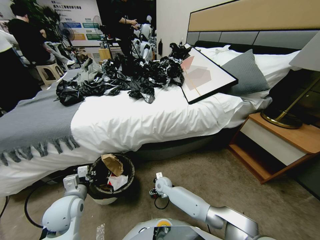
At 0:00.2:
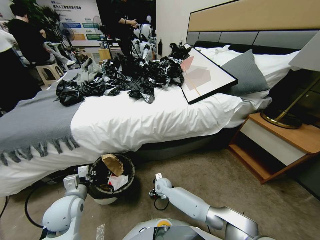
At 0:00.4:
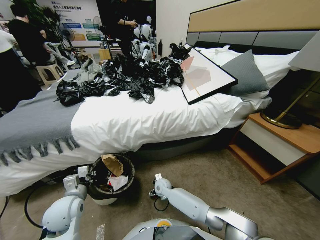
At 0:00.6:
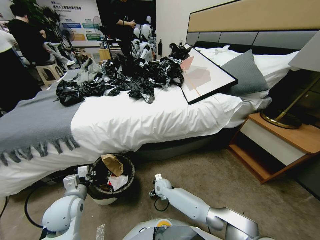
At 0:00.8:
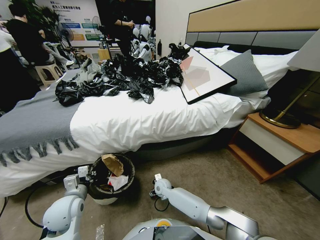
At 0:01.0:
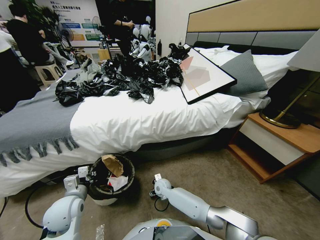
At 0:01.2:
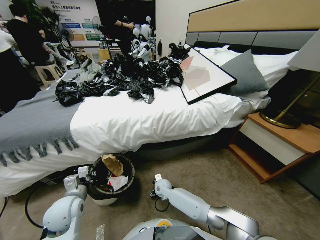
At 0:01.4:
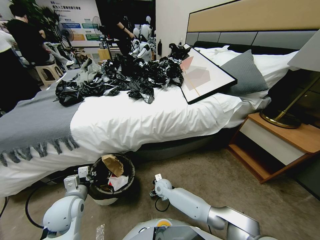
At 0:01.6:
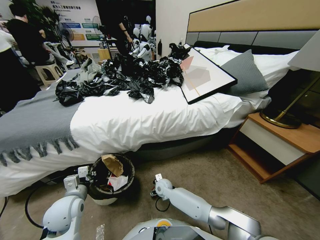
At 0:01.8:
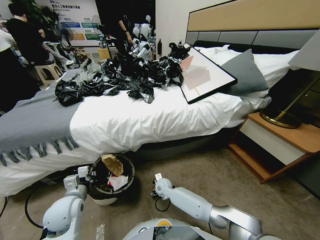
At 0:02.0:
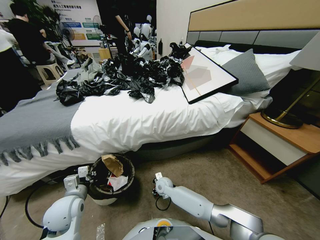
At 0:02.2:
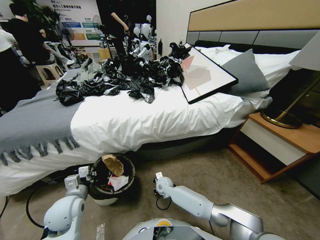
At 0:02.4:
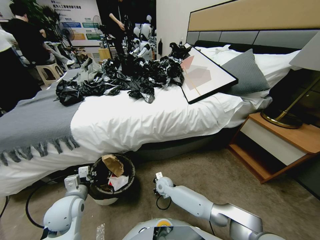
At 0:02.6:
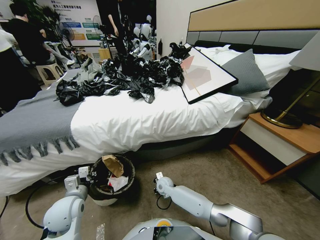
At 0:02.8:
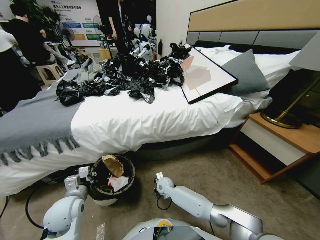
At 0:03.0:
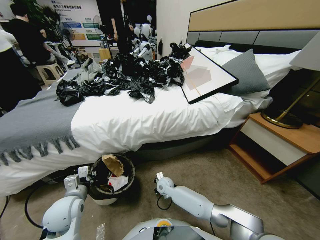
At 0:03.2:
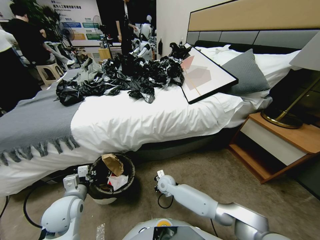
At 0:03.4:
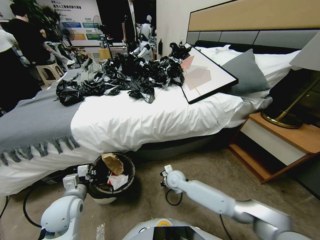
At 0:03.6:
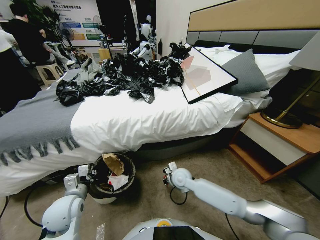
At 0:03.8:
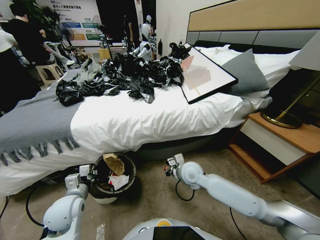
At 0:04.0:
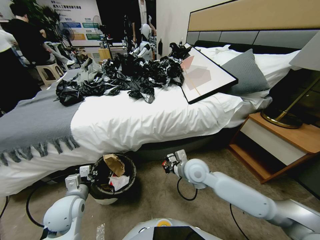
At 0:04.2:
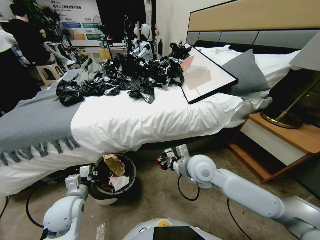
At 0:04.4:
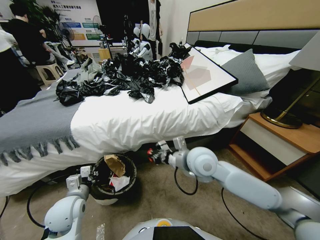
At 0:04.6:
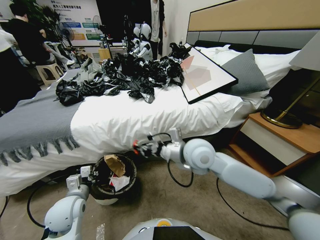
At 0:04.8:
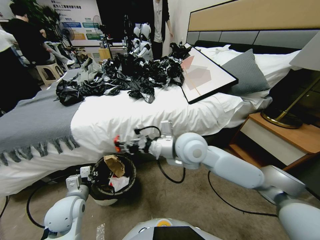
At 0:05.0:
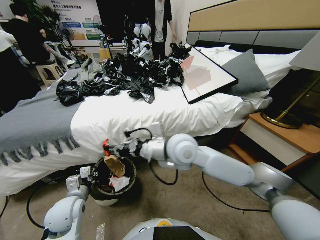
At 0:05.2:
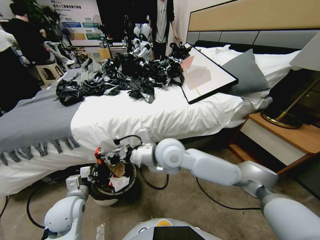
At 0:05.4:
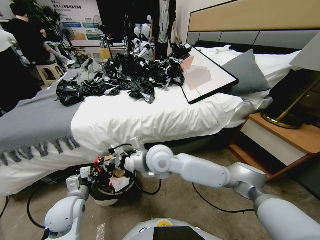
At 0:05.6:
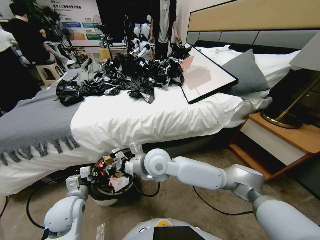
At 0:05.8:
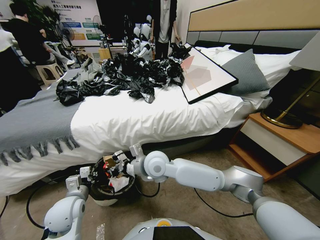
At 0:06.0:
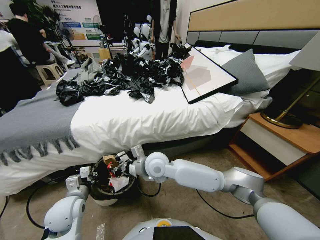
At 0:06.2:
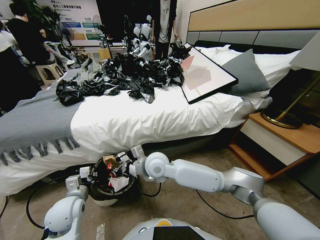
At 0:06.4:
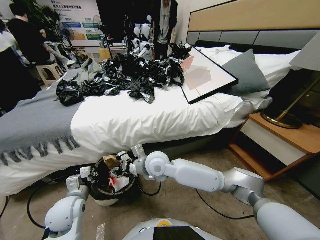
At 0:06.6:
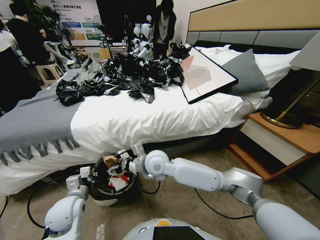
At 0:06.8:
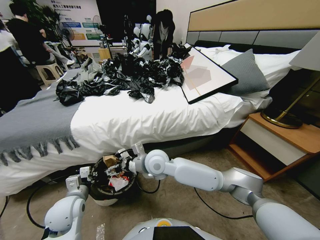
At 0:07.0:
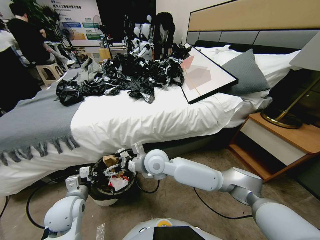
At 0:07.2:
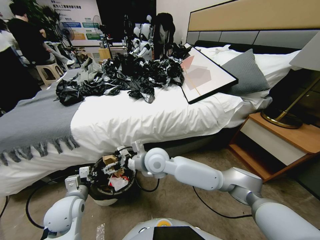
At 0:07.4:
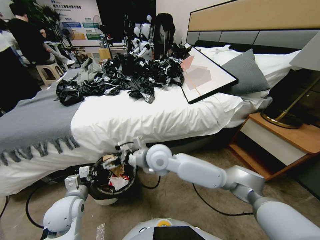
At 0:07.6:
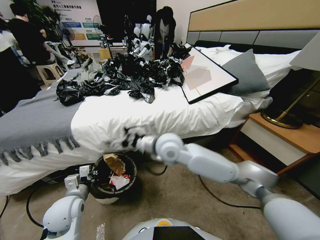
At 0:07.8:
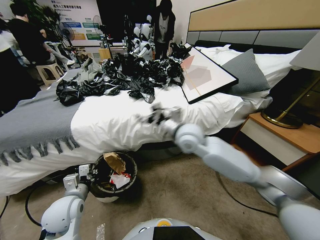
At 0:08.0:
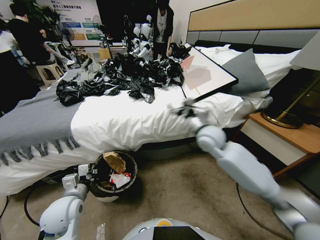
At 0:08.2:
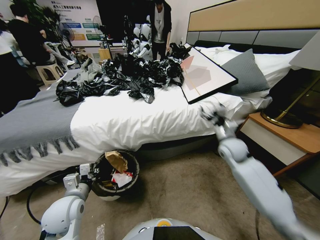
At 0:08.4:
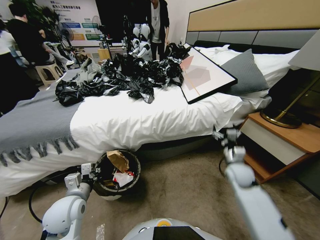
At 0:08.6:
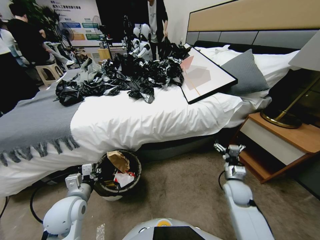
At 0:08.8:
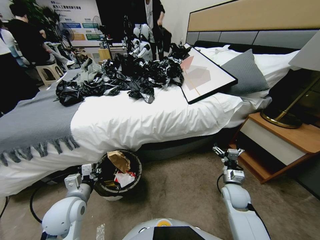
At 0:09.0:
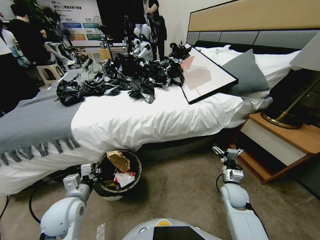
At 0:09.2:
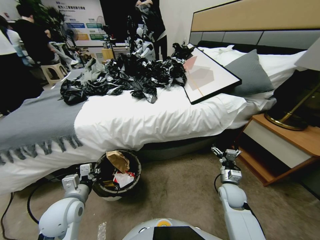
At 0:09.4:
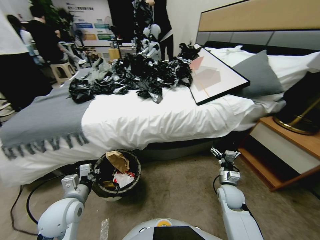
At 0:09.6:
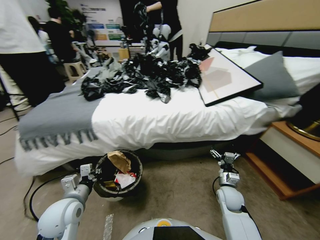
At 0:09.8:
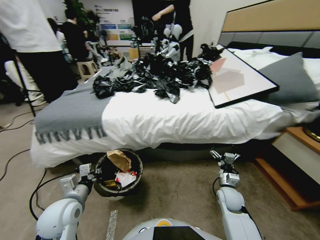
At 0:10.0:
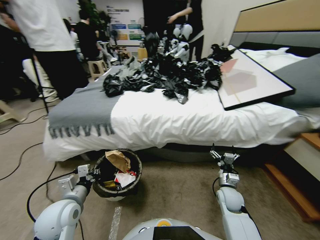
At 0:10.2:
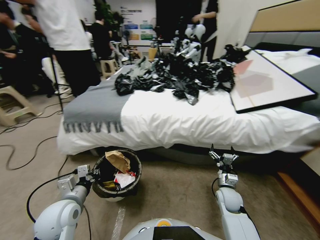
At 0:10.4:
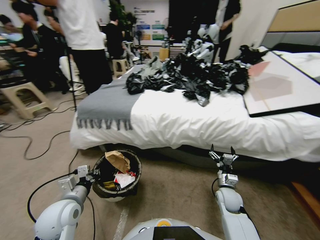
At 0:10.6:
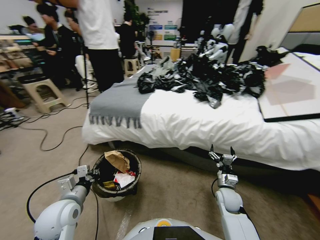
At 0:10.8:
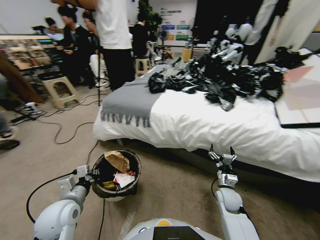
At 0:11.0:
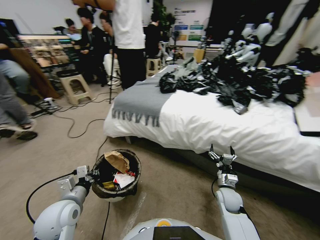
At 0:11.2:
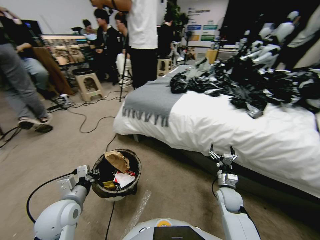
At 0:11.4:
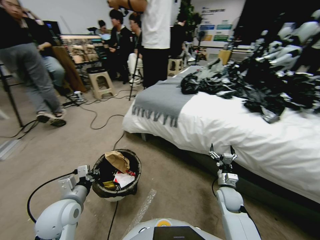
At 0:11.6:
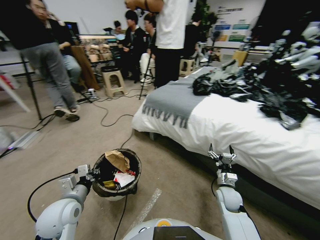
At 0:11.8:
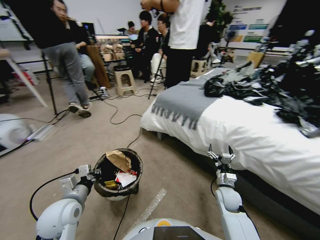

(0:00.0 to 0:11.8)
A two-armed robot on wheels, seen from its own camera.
Task of the whole recording: Pick up the trash bin, then pick up the garbage from the floor and place it into the trash bin.
0:00.0 - 0:01.4: Both grippers stay put.
0:01.4 - 0:03.0: The right gripper closes up.
0:03.0 - 0:04.4: The right gripper moves upward, about 35 cm.
0:04.4 - 0:06.0: The right gripper goes about 15 cm to the left and downward.
0:06.0 - 0:07.4: The right gripper goes about 5 cm upward, and opens.
0:07.4 - 0:08.8: The right gripper travels to the right and downward by roughly 40 cm.

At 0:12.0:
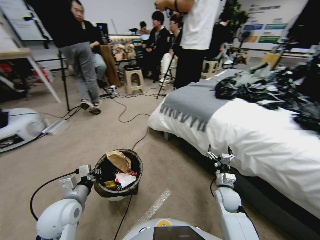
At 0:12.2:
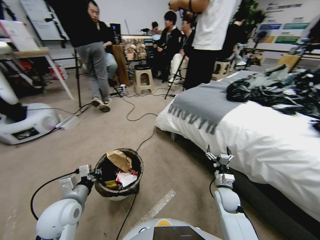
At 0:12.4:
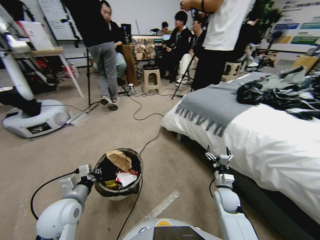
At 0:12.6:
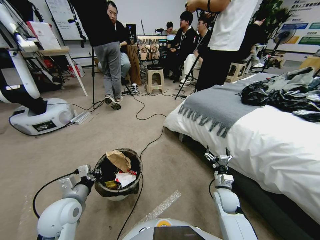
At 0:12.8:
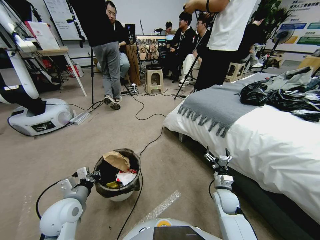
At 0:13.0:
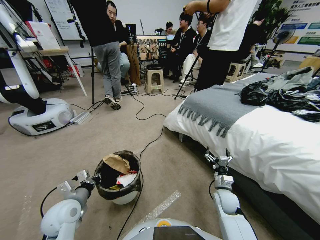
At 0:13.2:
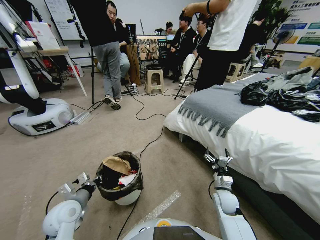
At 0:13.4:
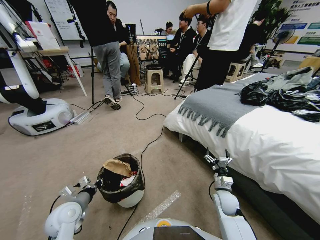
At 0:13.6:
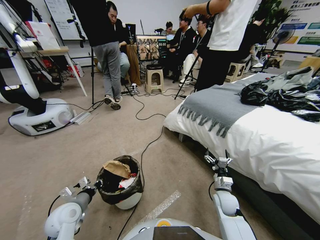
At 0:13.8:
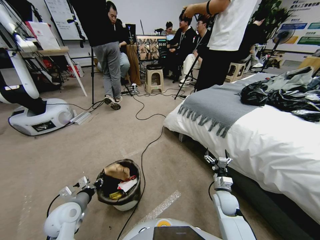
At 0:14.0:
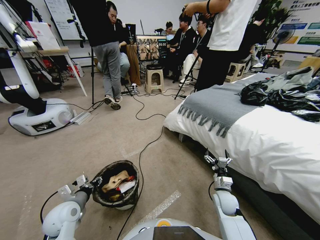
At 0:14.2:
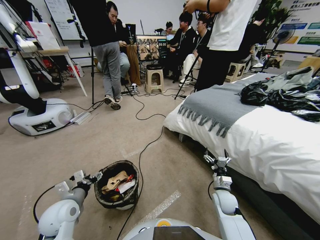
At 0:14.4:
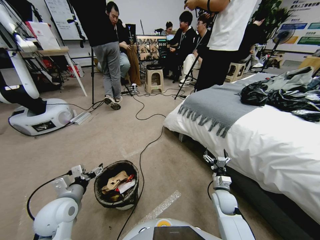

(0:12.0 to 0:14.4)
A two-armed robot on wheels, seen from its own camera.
Task of the whole recording: Pick up the trash bin, then pick up the garbage from the floor and place it into the trash bin.
0:12.0 - 0:13.2: The left gripper goes roughly 5 cm downward.
0:13.2 - 0:14.4: The left gripper travels upward by some 5 cm, and opens.

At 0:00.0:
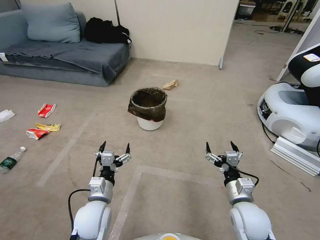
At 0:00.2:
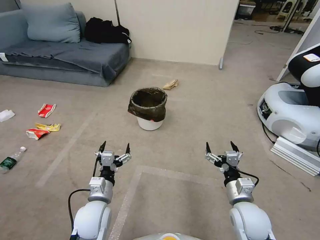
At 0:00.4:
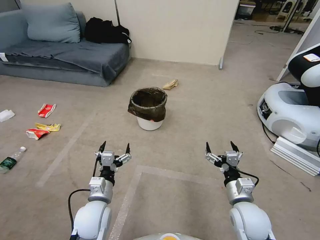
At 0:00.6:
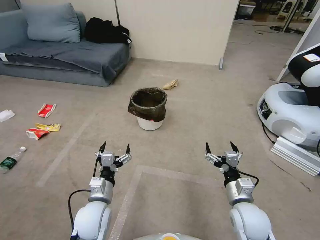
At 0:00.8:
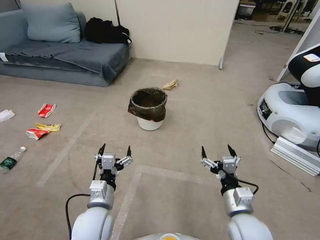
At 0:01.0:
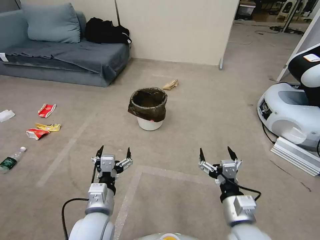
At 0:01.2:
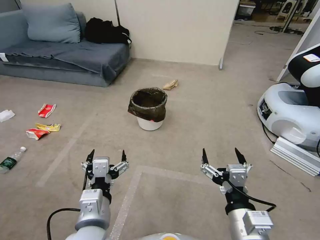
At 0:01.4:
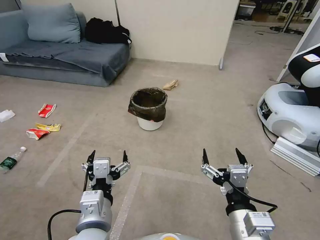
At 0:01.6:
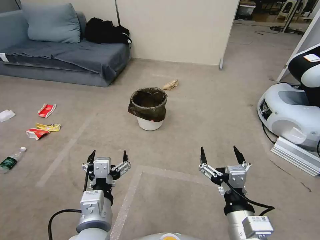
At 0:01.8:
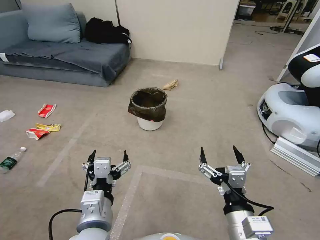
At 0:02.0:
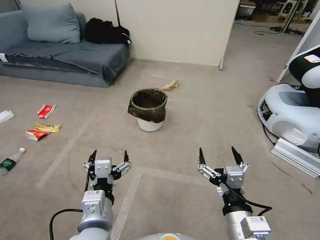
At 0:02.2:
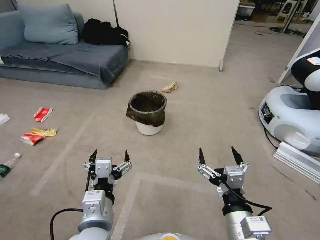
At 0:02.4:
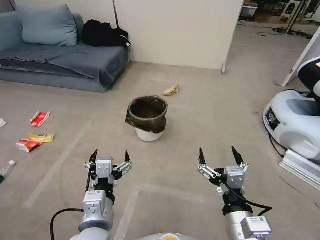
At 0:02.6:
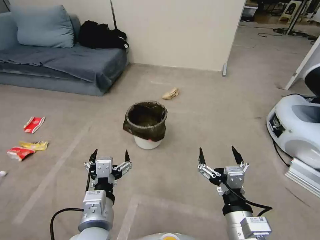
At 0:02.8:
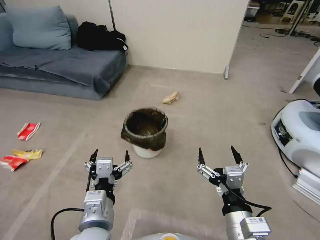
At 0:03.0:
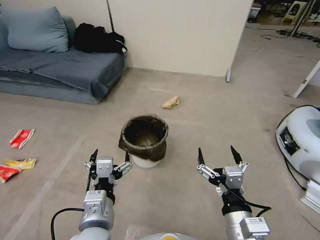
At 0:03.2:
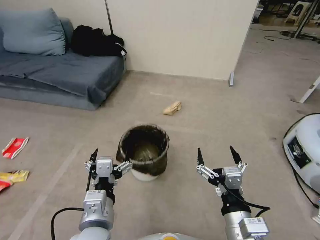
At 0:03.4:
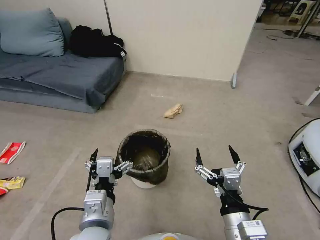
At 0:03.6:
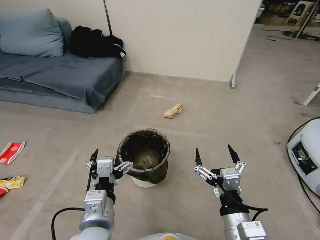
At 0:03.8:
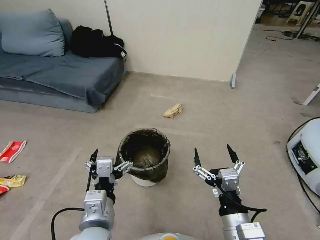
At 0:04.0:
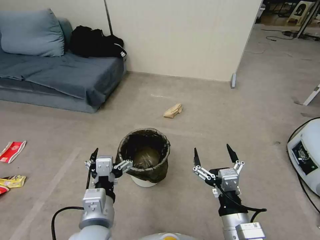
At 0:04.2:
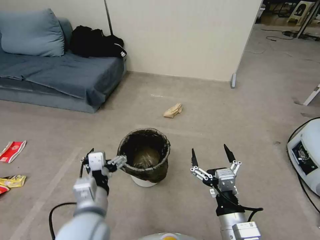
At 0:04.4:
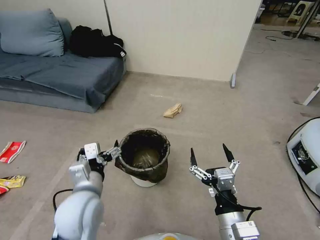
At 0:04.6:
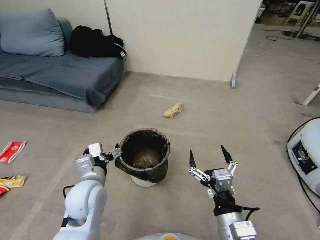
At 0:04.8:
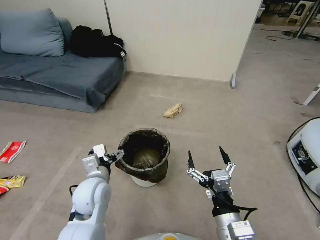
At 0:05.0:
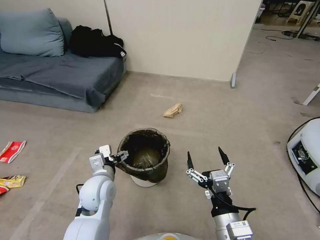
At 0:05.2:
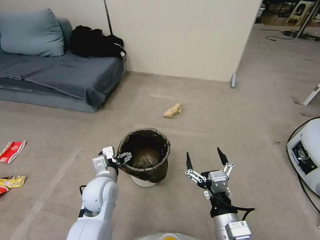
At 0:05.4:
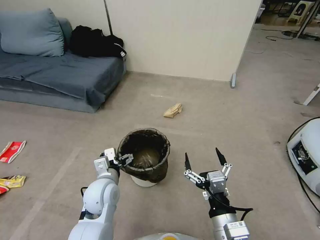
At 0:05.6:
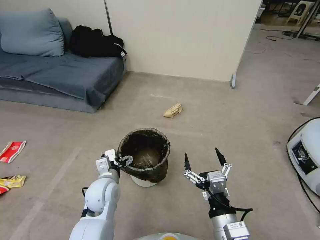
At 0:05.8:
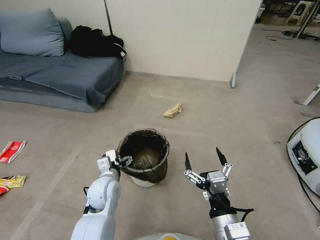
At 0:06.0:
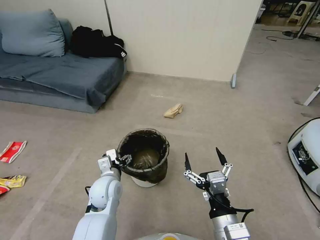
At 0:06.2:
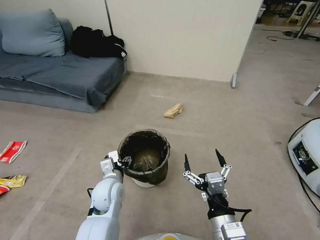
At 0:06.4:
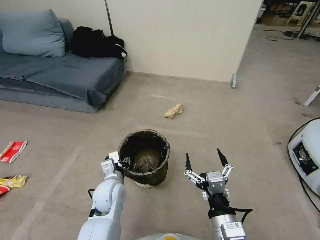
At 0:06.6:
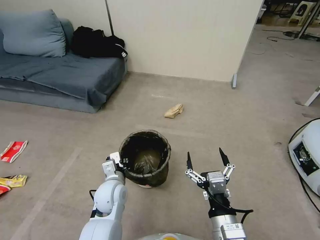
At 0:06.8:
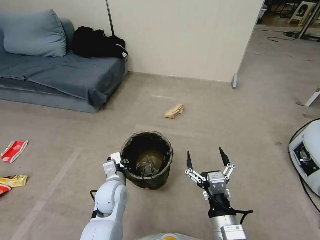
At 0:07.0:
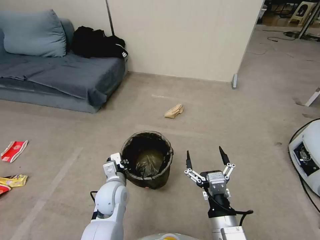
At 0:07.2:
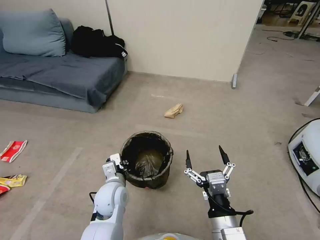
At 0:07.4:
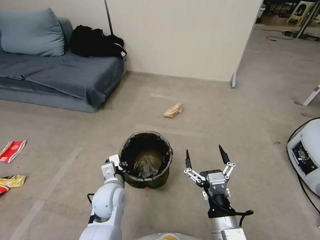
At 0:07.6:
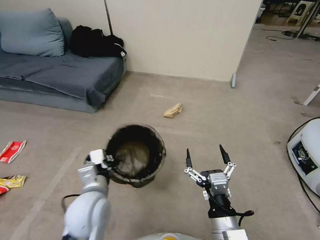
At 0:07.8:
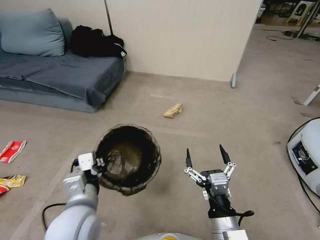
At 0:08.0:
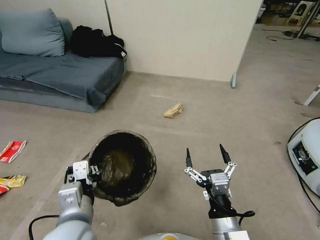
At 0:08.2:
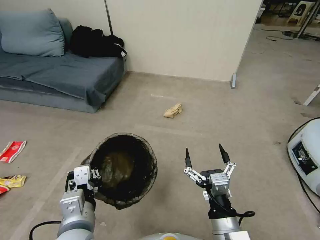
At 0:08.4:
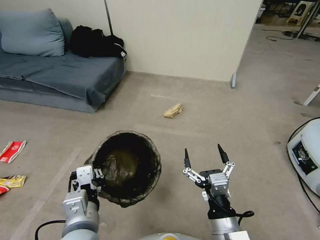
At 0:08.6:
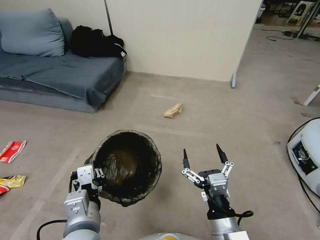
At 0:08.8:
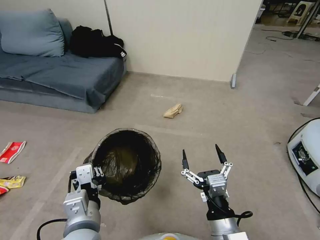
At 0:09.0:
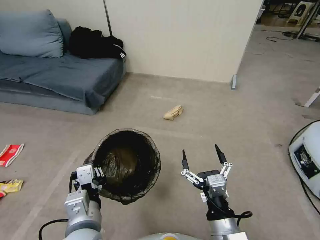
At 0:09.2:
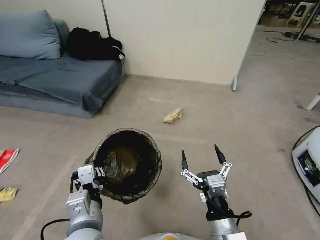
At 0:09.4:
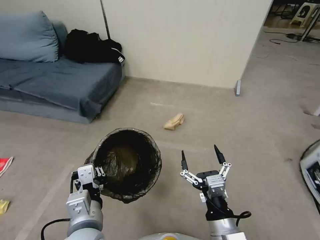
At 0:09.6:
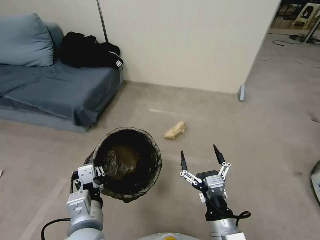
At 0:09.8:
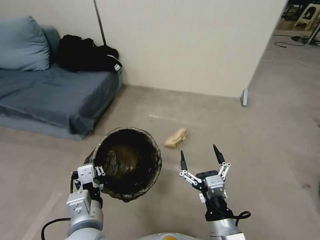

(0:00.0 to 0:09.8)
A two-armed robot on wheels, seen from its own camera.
Task of the whole recording: Pick up the trash bin, then pick up the garbage from the floor and place it into the trash bin.
0:04.2 - 0:05.6: The left gripper travels forward and downward by some 15 cm.
0:05.6 - 0:07.0: The left gripper closes its fingers.
0:07.0 - 0:08.4: The left gripper is displaced backward and upward by approximately 20 cm.
